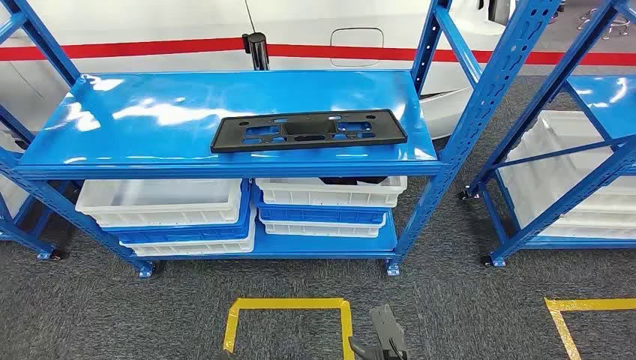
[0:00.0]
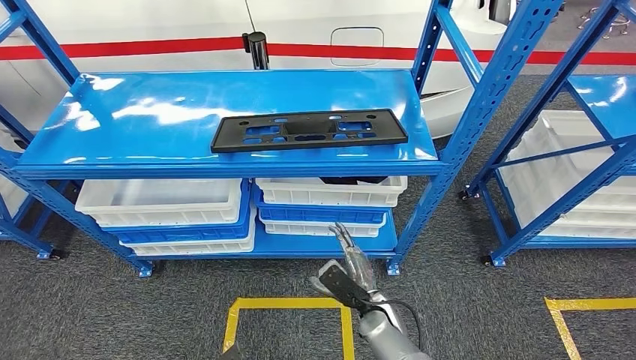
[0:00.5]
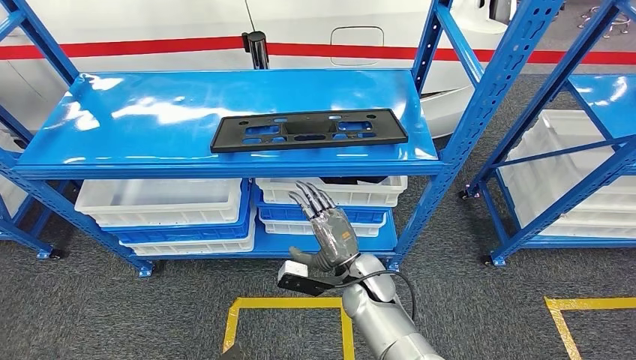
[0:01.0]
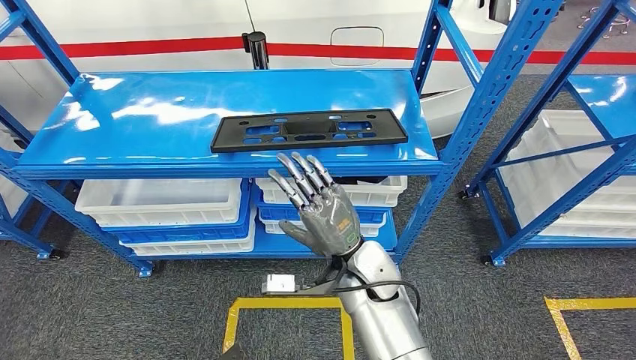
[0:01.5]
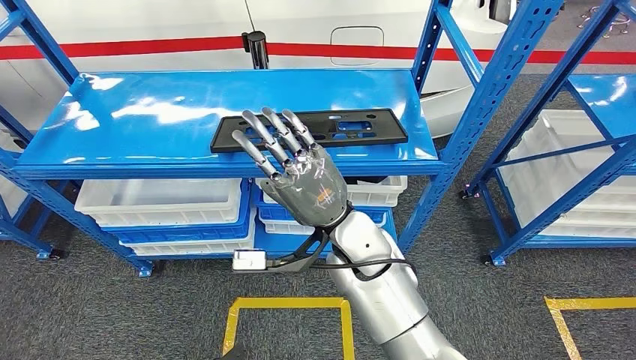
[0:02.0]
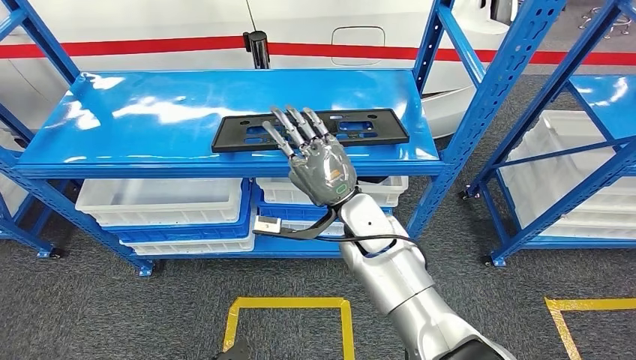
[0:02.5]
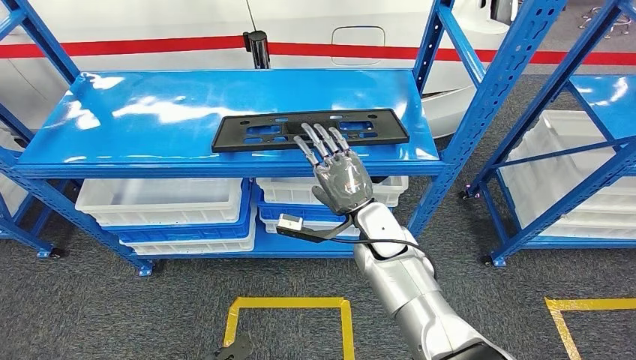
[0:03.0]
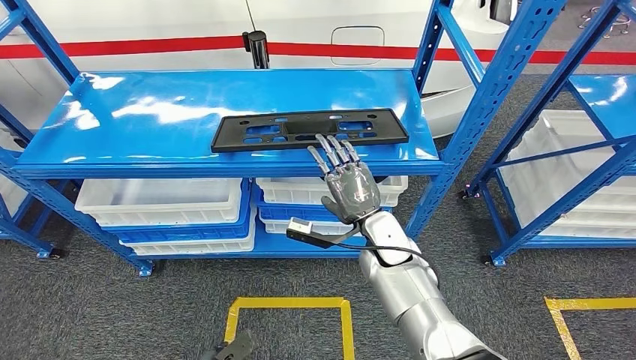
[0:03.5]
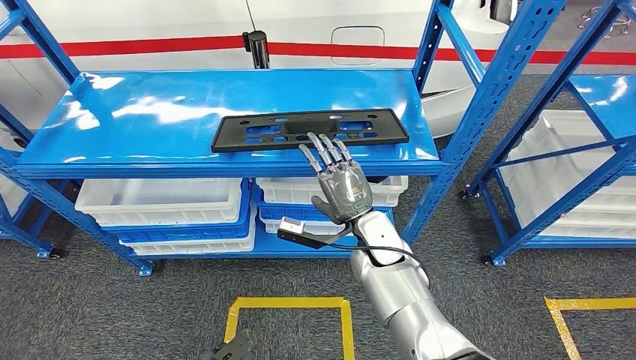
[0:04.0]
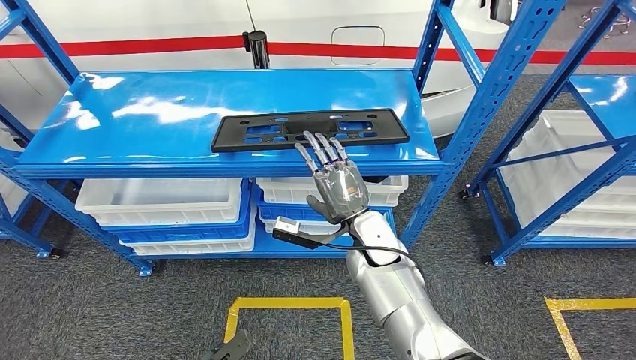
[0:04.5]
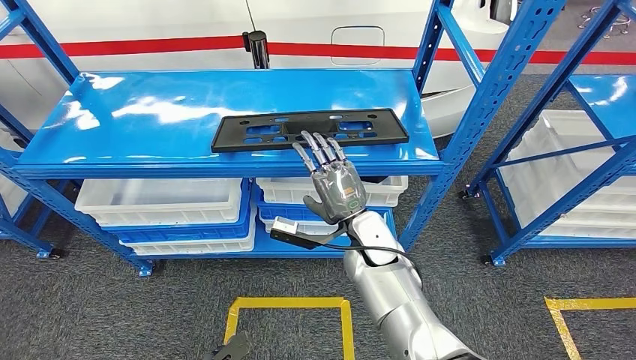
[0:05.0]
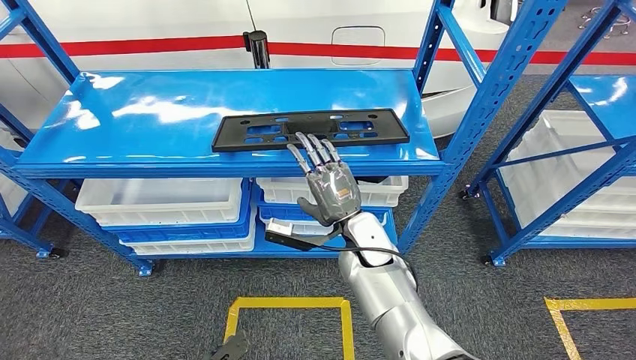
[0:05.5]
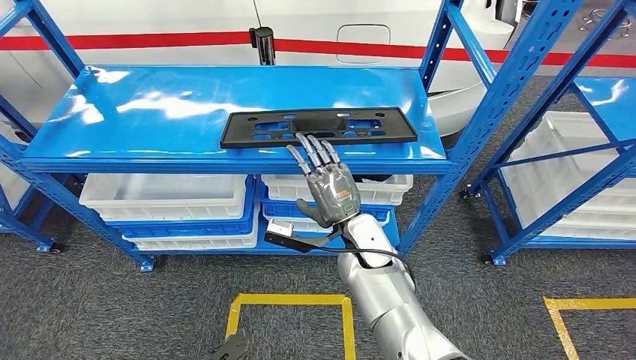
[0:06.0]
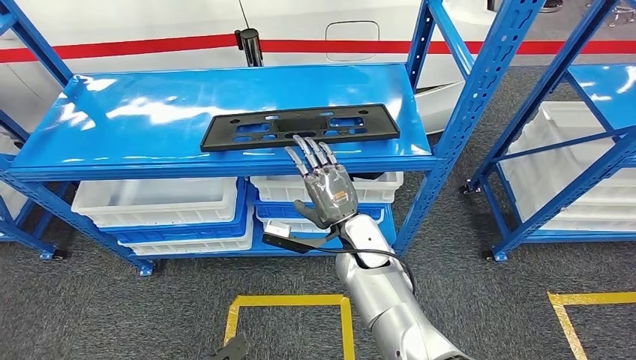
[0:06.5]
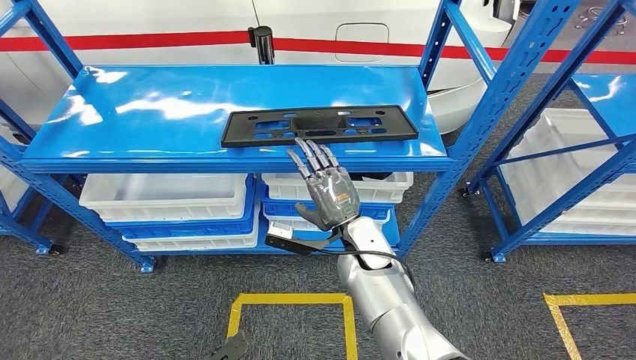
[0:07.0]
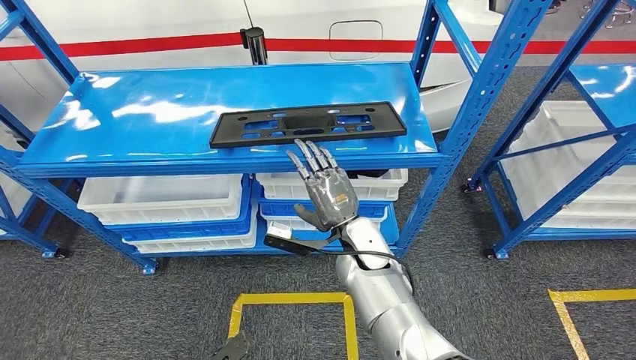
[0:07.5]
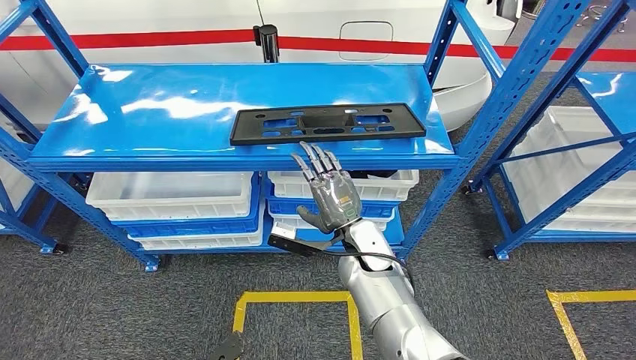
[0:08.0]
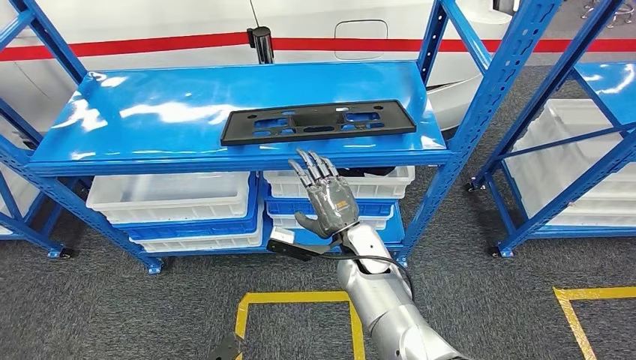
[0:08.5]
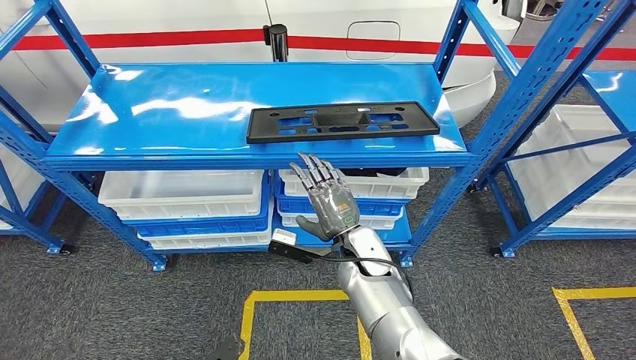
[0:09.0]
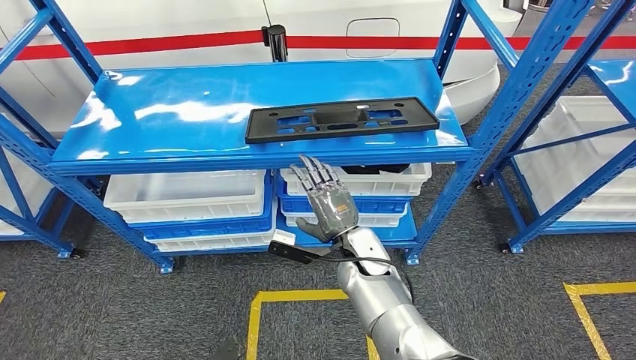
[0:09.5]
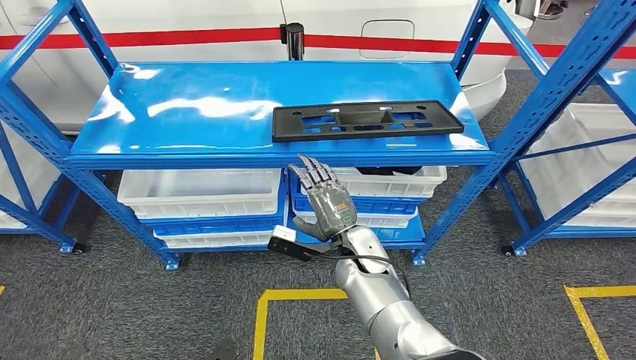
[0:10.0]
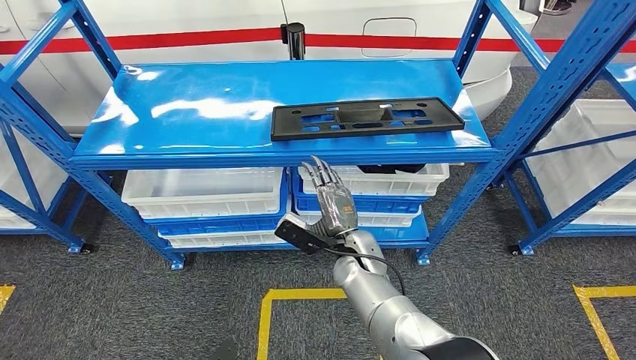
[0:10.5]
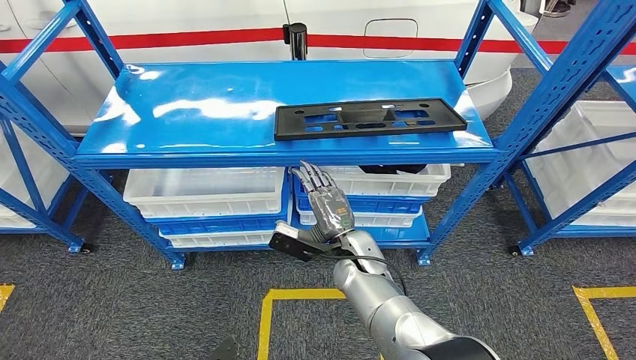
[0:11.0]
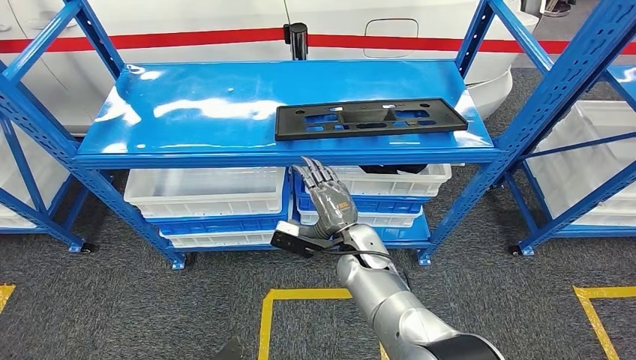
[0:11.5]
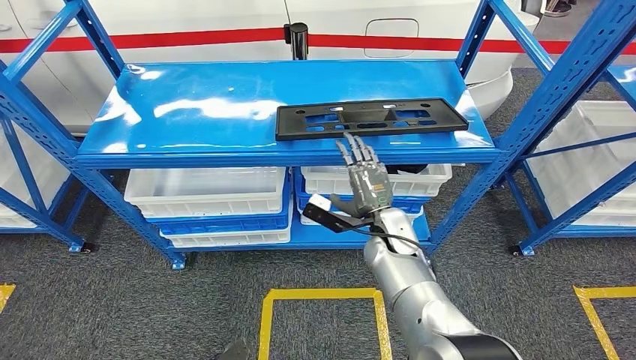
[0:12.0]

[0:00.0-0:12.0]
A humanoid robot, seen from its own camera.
0:02.0 to 0:04.0: The right hand goes some 10 cm downward.

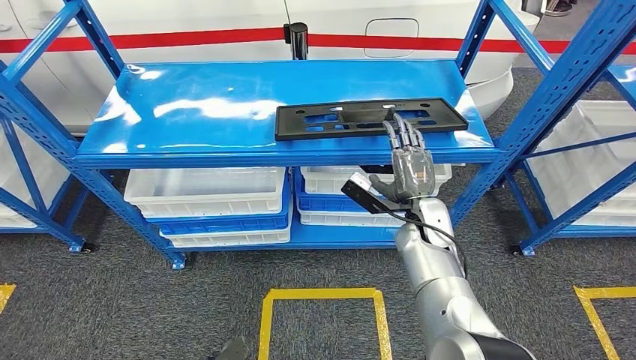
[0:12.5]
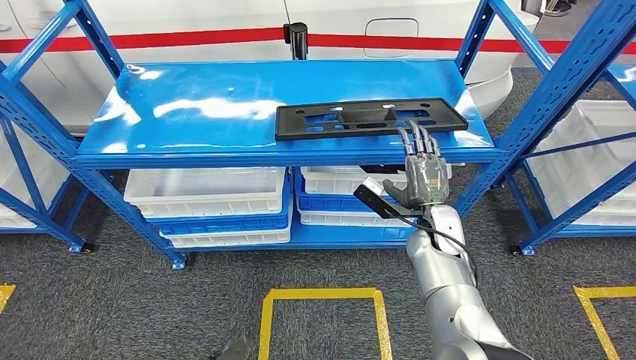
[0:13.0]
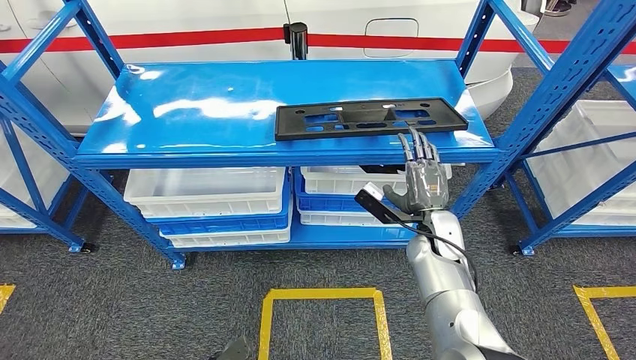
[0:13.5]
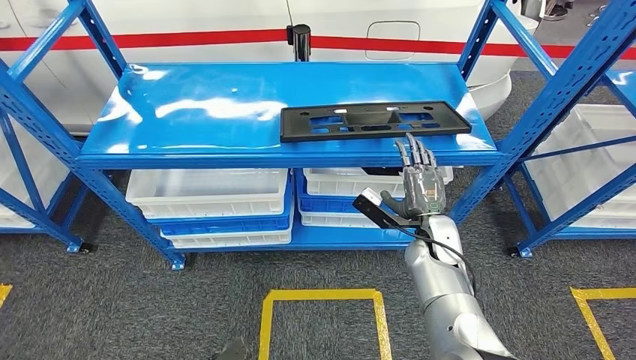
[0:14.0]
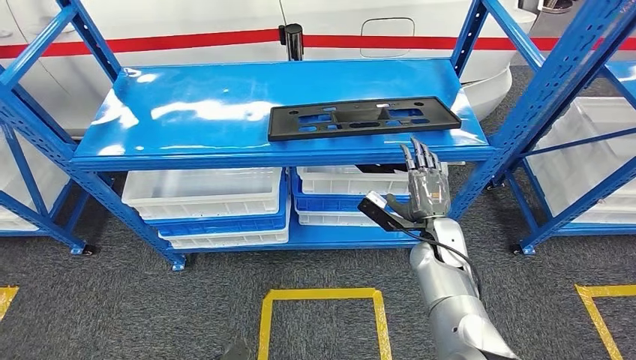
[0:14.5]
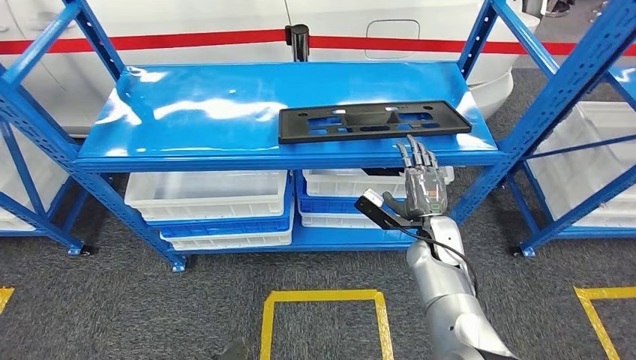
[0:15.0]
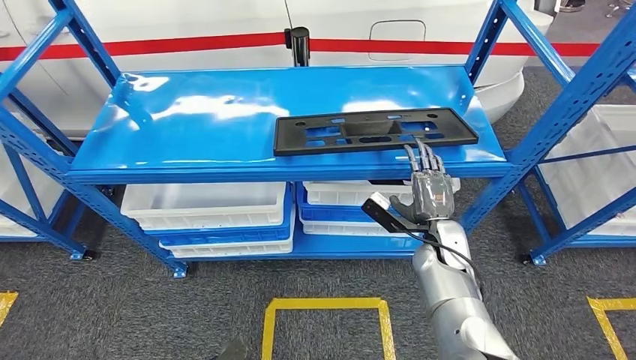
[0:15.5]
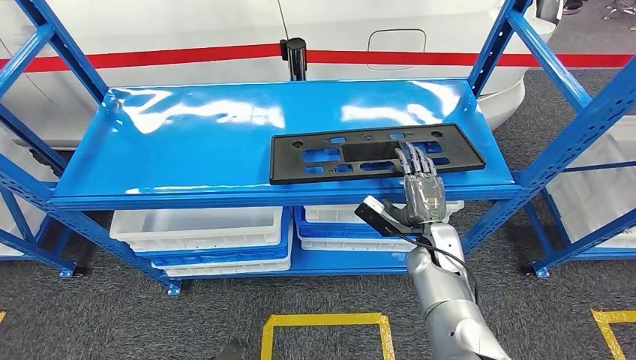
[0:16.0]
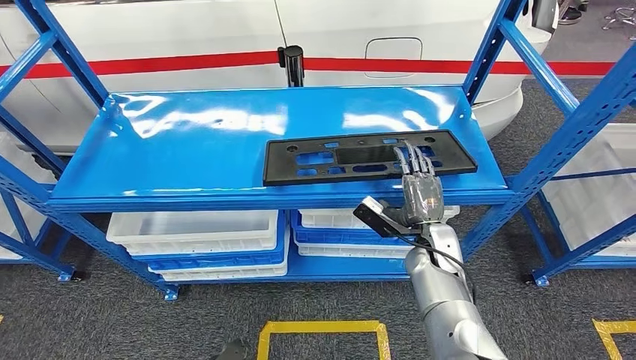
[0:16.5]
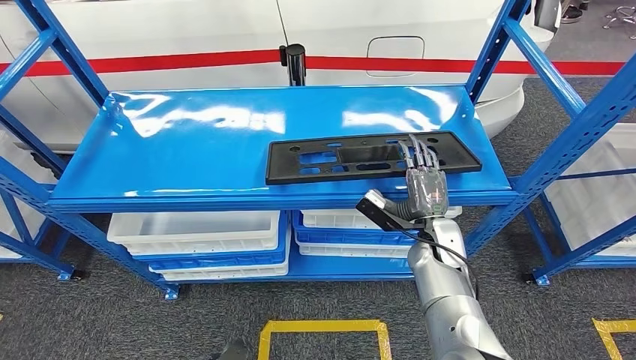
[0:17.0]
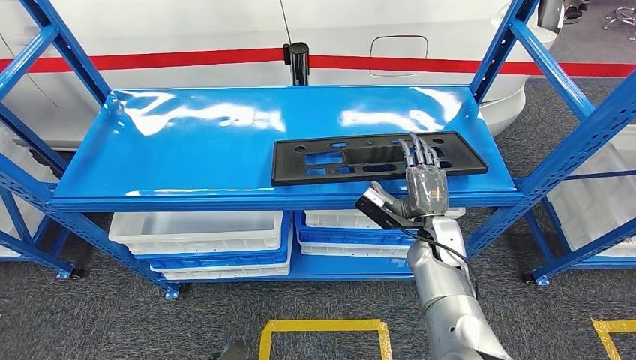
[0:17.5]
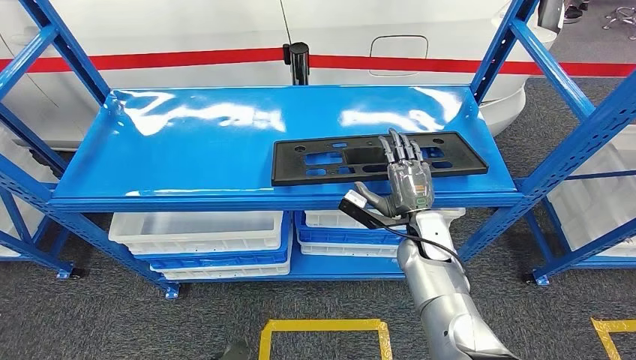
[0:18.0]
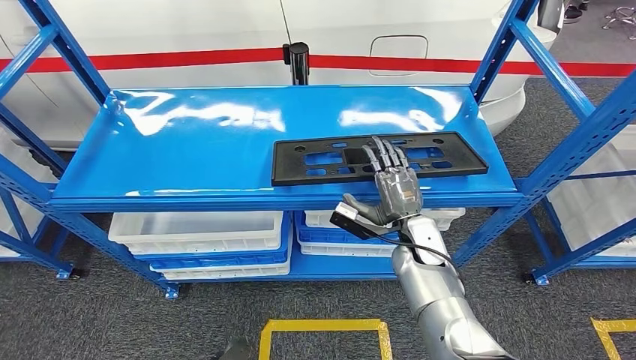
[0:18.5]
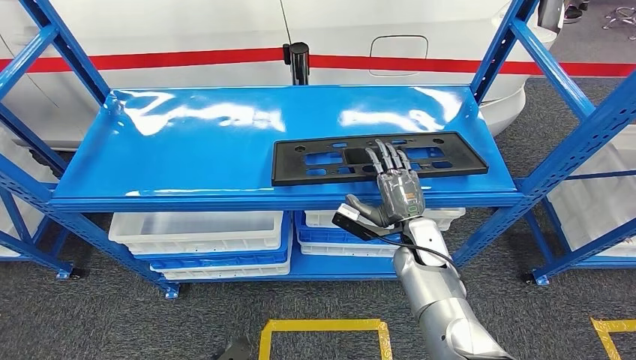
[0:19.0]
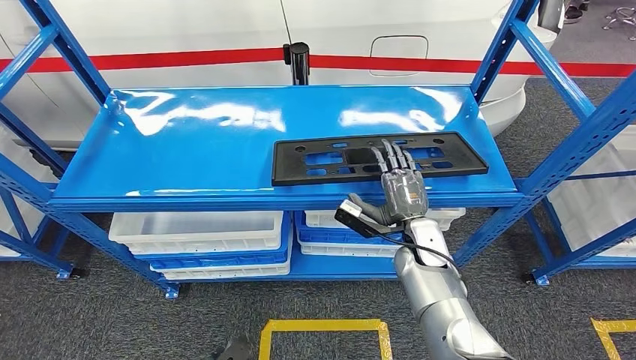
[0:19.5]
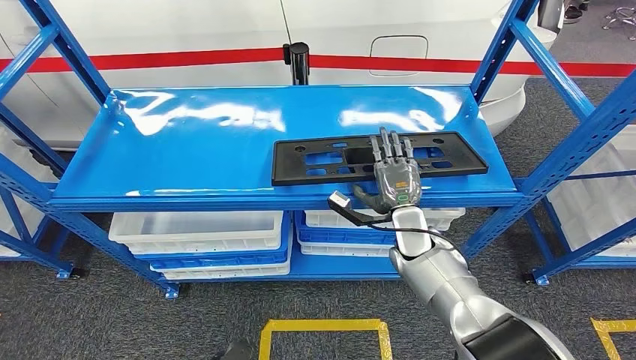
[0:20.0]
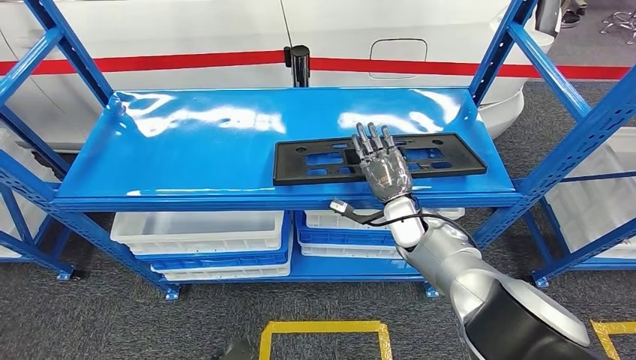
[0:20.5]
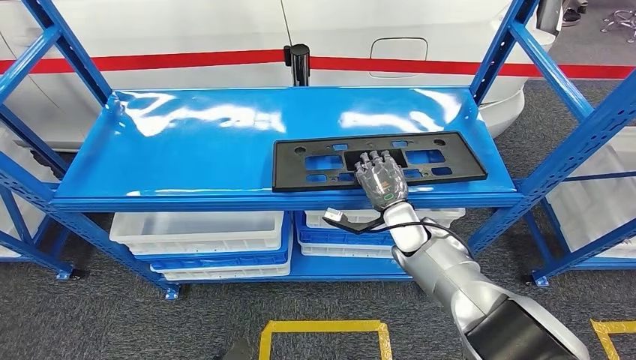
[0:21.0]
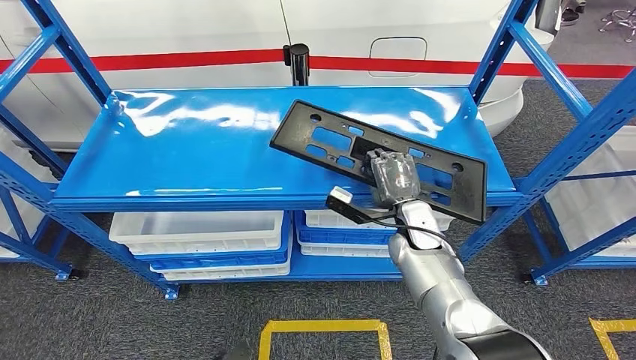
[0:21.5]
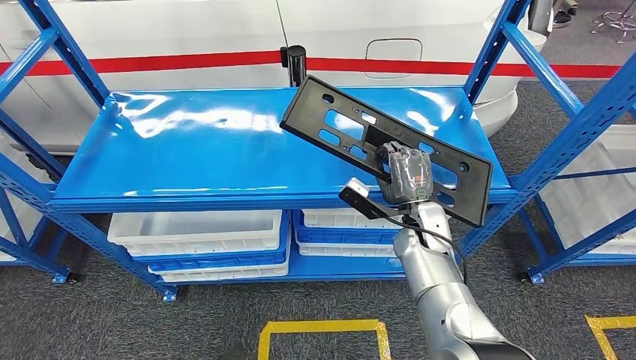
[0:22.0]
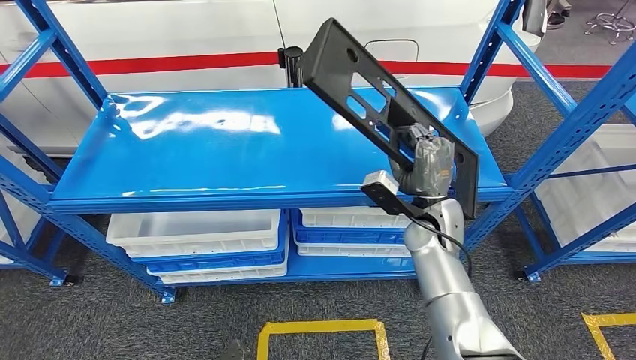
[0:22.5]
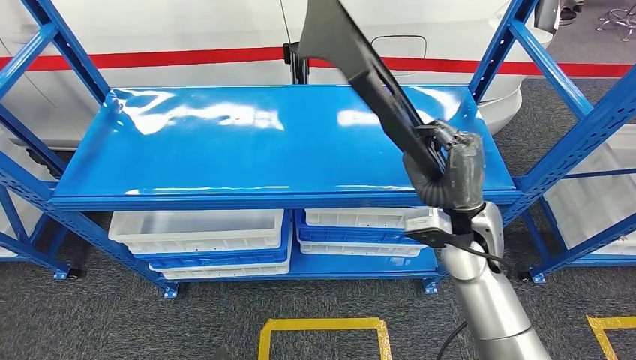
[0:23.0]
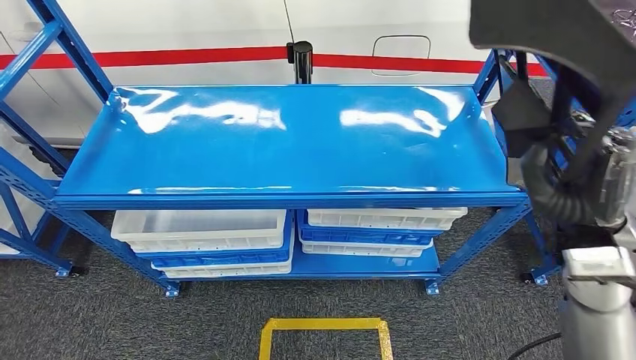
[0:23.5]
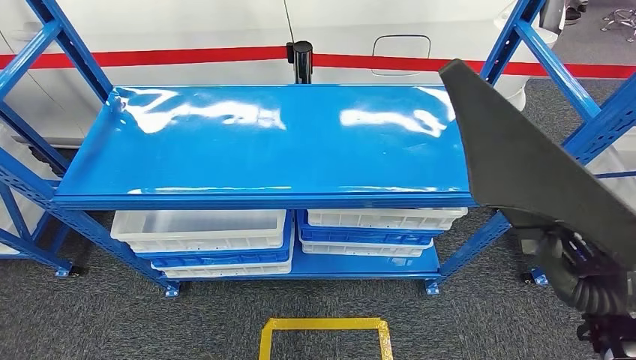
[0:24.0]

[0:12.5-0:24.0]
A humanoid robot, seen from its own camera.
Step, 0:12.5 to 0:21.5: Pick up the large material from the shelf.
0:12.5 to 0:14.5: The right hand changes place by some 5 cm.
